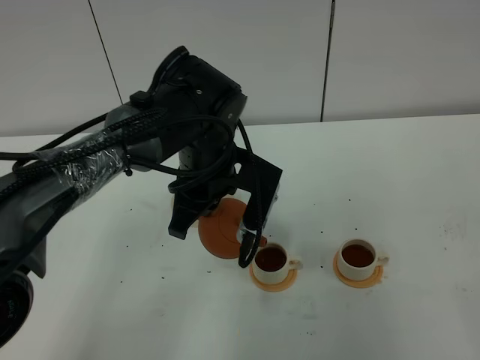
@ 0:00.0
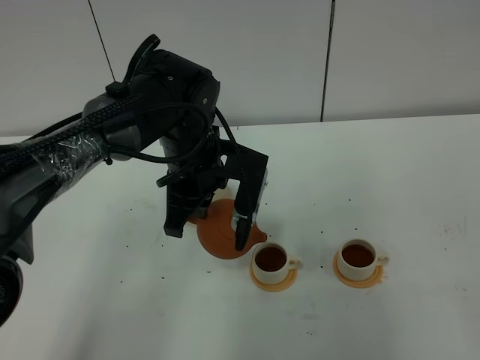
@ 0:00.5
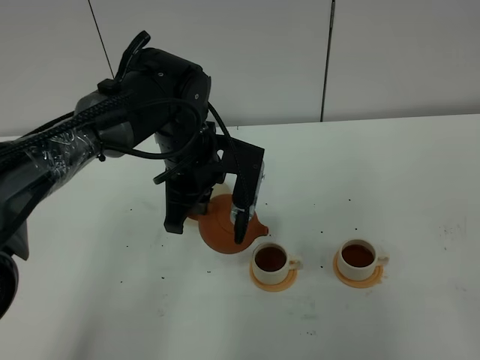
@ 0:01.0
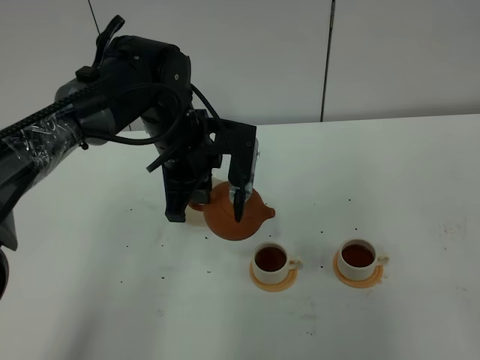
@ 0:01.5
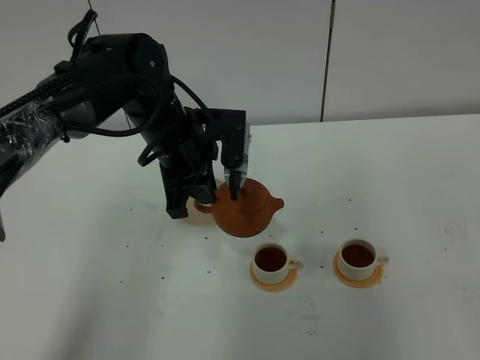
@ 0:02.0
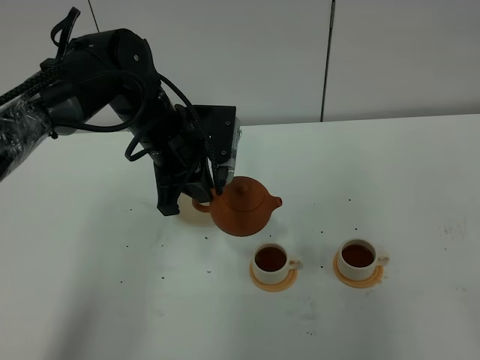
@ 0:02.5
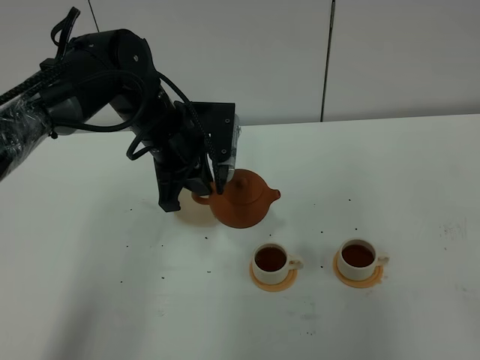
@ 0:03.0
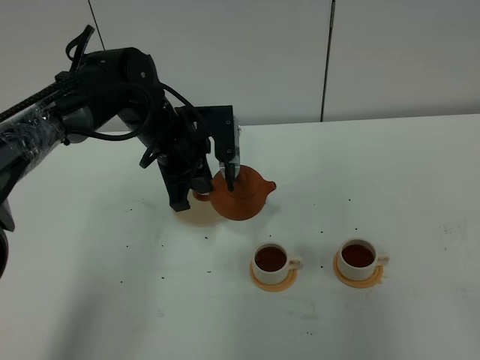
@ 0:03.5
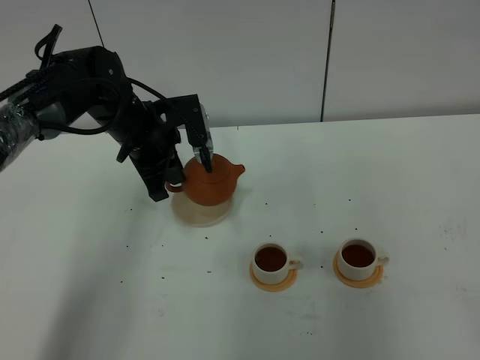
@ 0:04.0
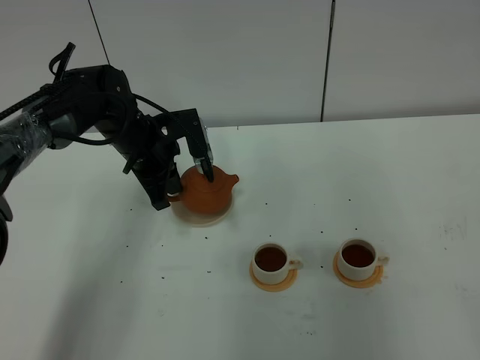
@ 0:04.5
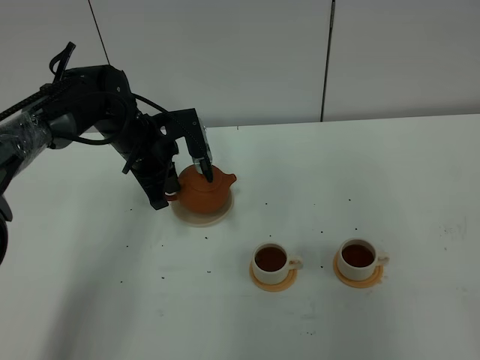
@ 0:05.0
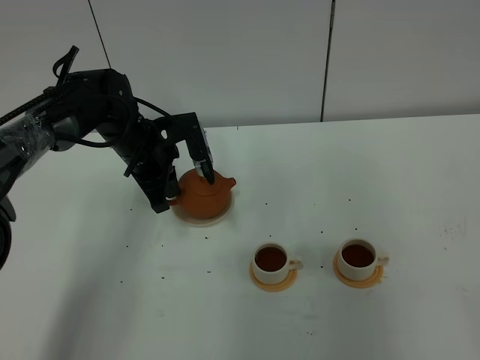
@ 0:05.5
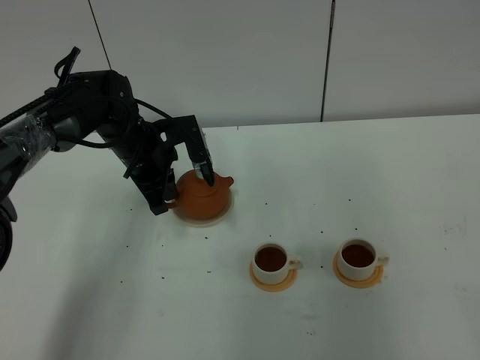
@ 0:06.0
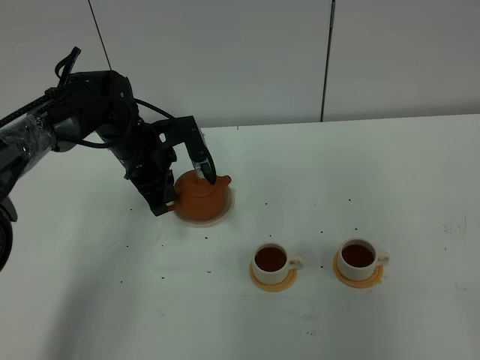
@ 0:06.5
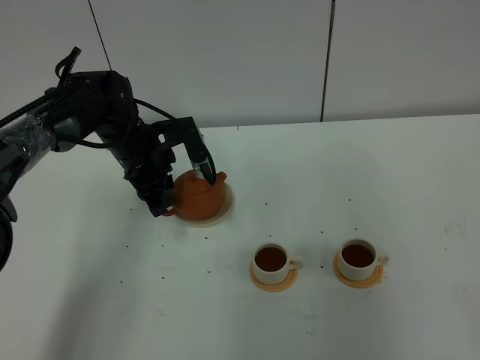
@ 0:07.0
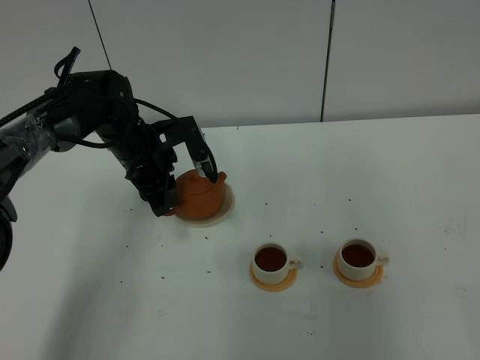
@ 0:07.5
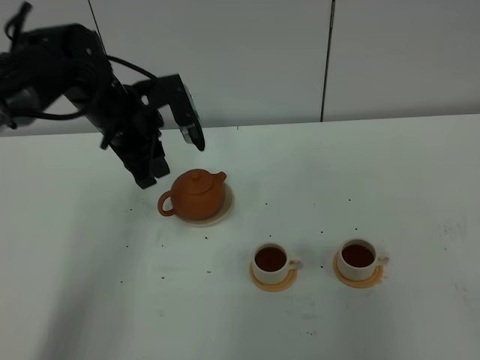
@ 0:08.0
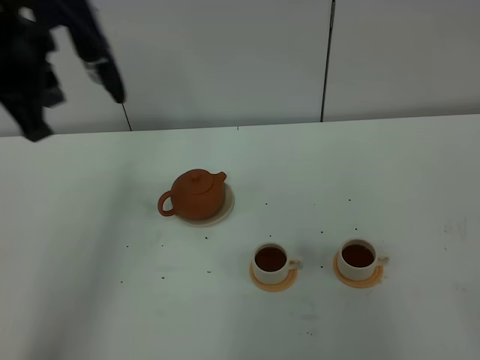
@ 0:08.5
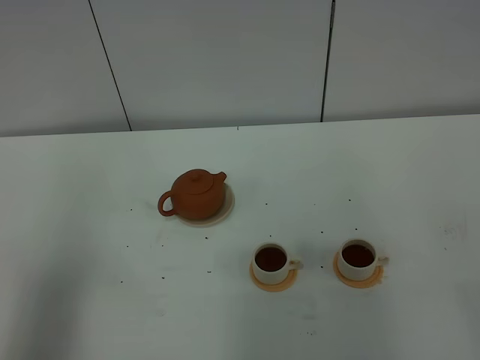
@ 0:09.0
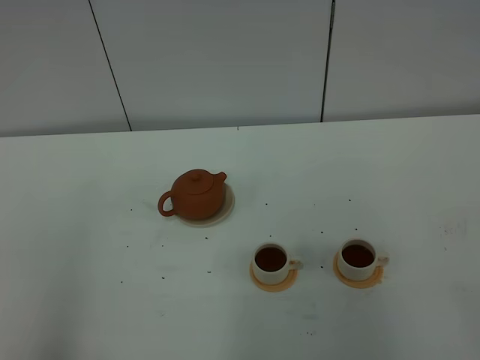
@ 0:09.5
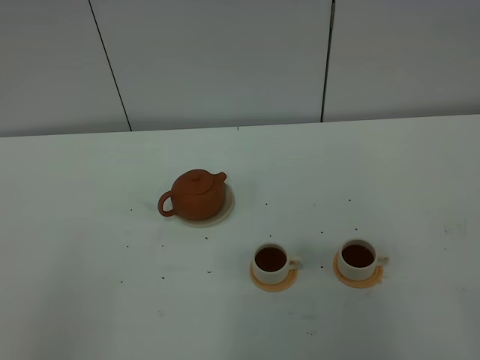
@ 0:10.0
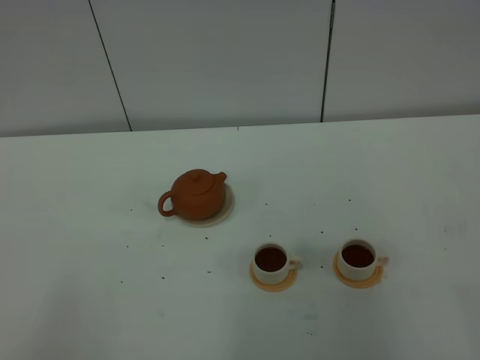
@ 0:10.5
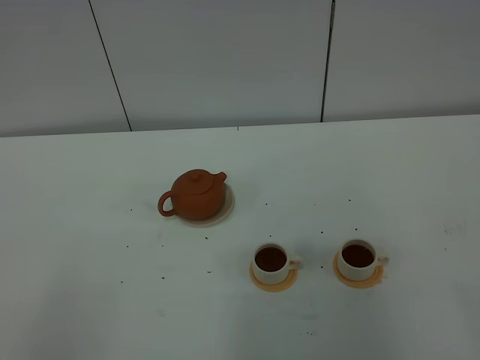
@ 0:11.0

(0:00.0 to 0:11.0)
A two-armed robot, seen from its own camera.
Task of the whole recording: grasp the brown teapot and pour the tea into the two white teacups one by one, put the brown teapot back in its original place.
0:00.0 - 0:02.0: The left gripper moves about 5 cm.
0:02.0 - 0:03.5: The grippers stay close to where they were, moving slightly.
0:03.5 - 0:05.5: The left gripper ends up approximately 5 cm from where it was.
0:05.5 - 0:07.5: The left gripper opens.
0:07.5 - 0:09.0: The left gripper shifts approximately 40 cm backward, upward and to the left, and closes.

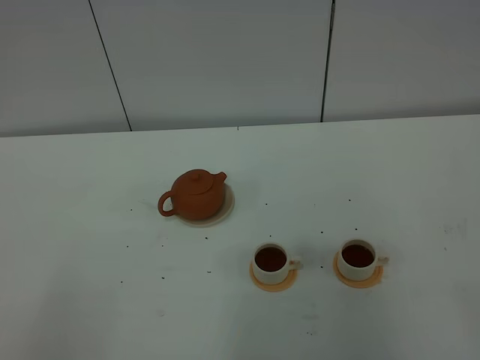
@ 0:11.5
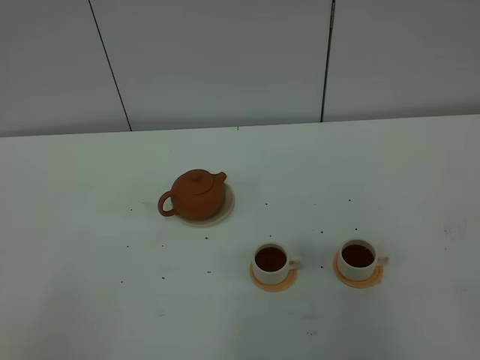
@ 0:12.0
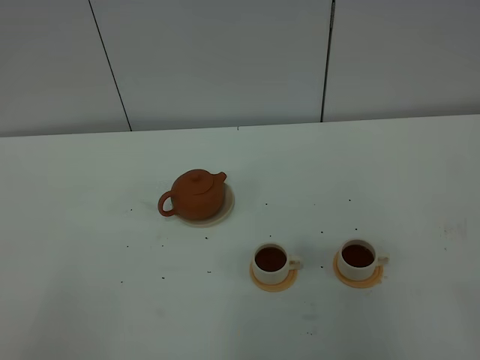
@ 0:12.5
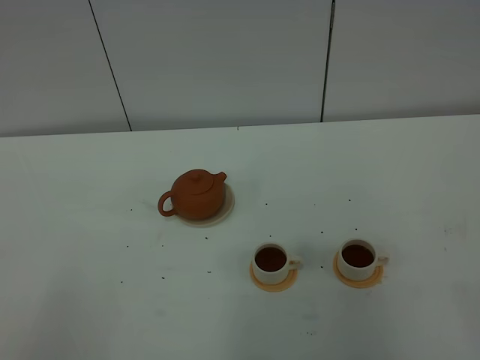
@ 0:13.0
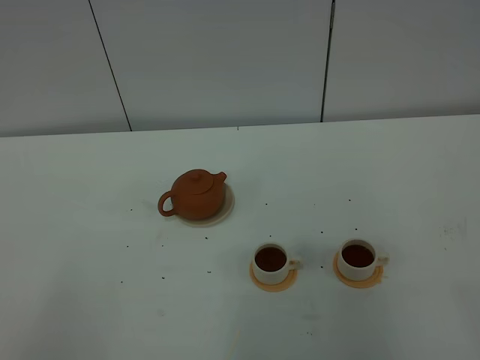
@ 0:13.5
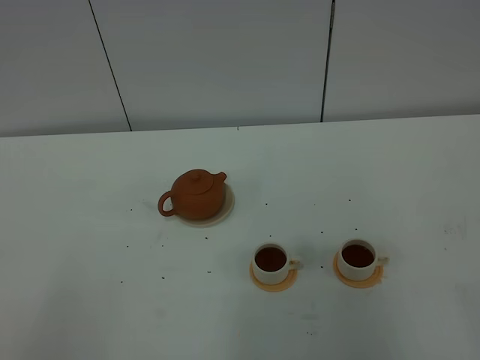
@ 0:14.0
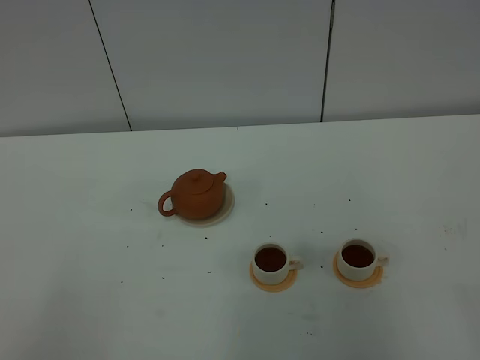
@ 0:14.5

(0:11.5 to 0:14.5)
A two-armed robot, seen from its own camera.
Task of the whole recording: grasp the brown teapot and pour the tea into the two white teacups one by one, put the brown teapot back in its original place.
0:11.5 - 0:14.5: Both grippers stay about where they are.

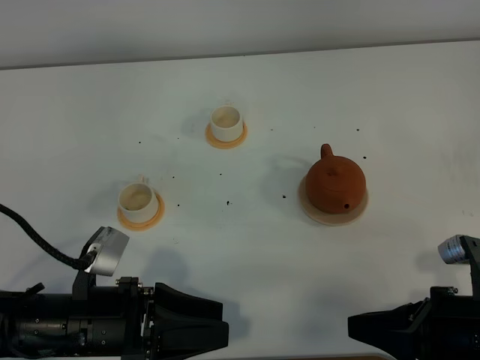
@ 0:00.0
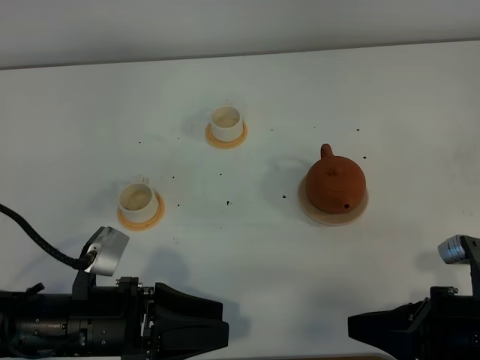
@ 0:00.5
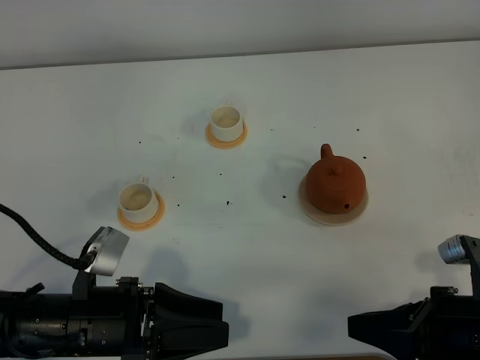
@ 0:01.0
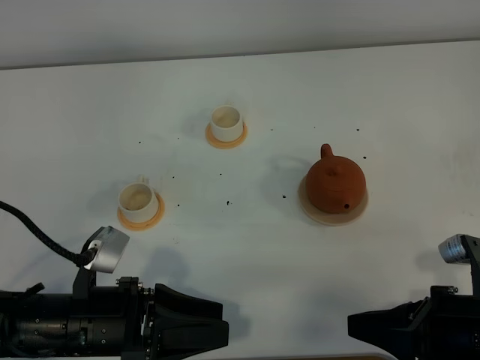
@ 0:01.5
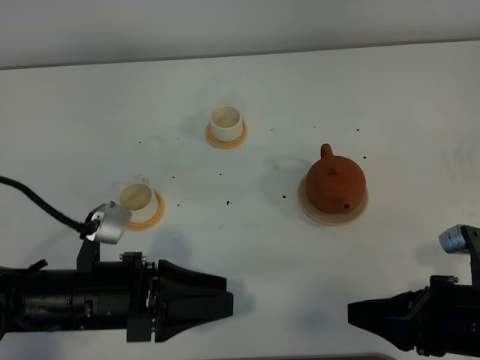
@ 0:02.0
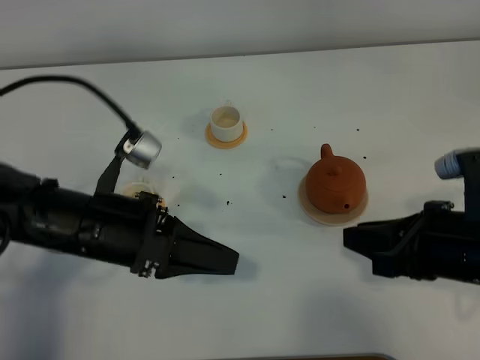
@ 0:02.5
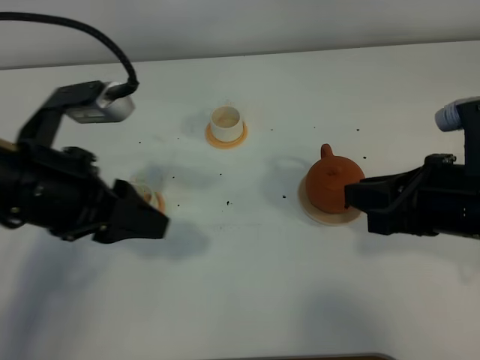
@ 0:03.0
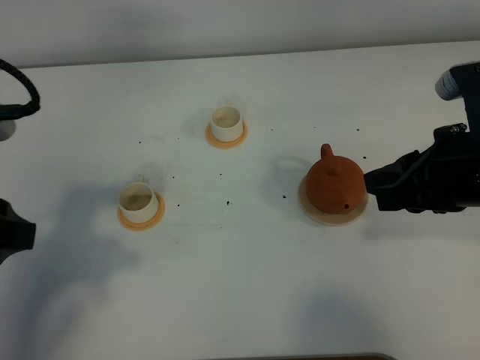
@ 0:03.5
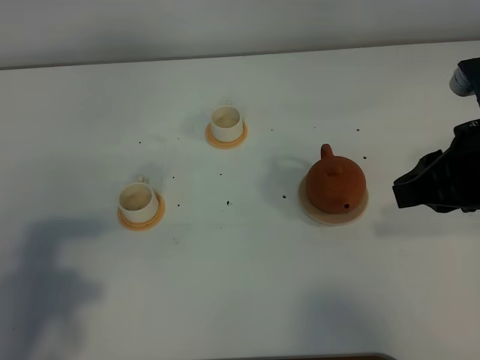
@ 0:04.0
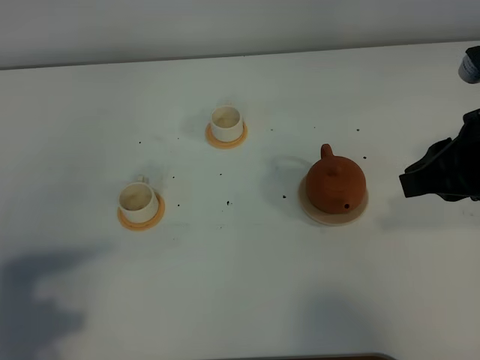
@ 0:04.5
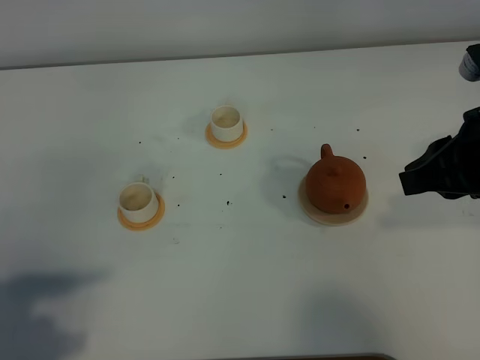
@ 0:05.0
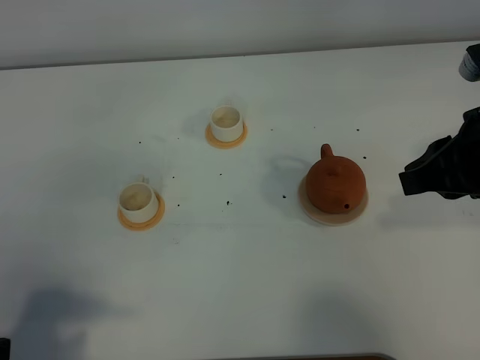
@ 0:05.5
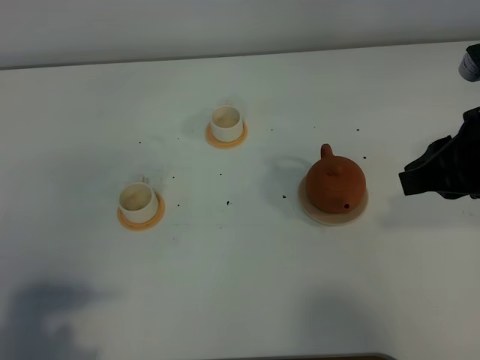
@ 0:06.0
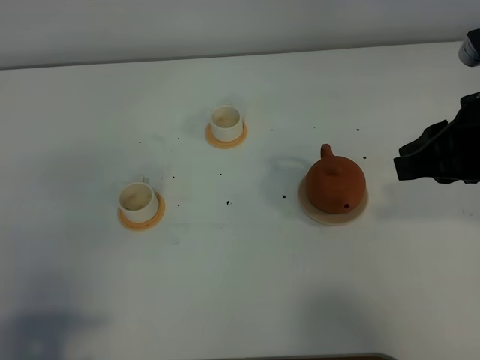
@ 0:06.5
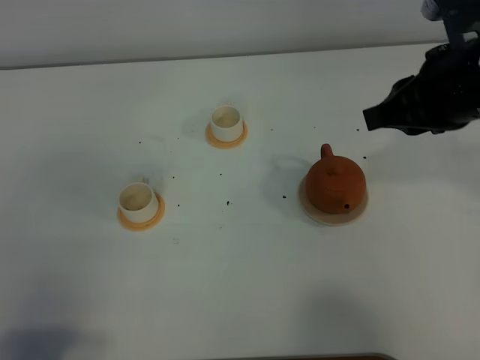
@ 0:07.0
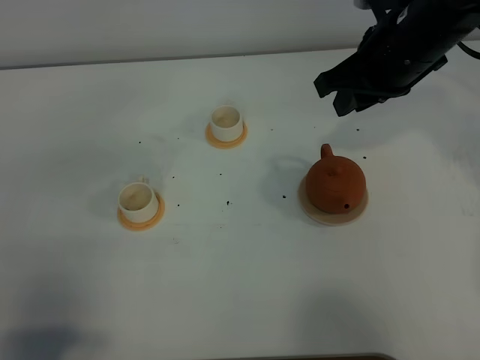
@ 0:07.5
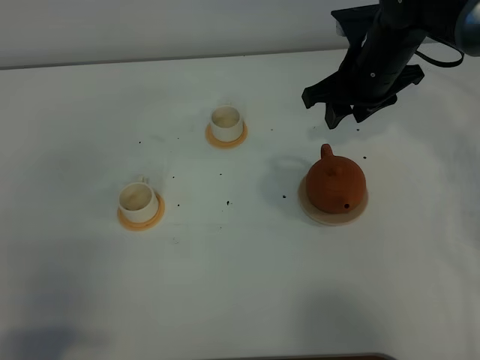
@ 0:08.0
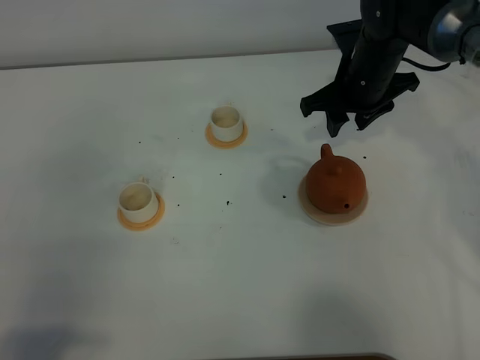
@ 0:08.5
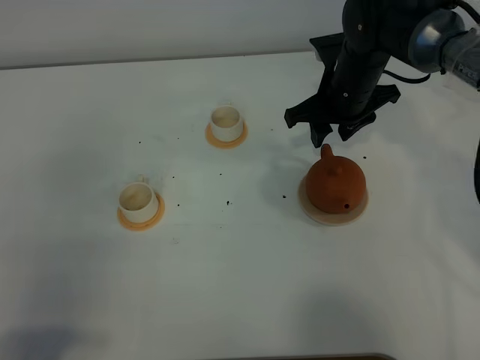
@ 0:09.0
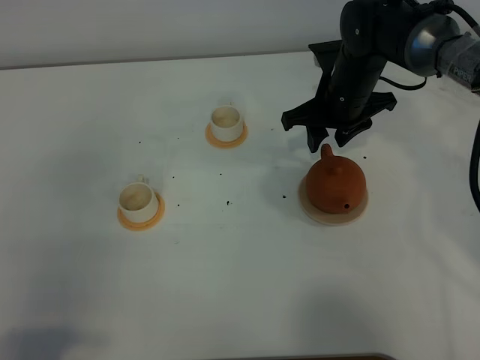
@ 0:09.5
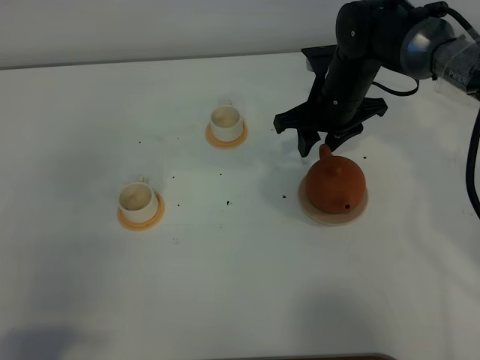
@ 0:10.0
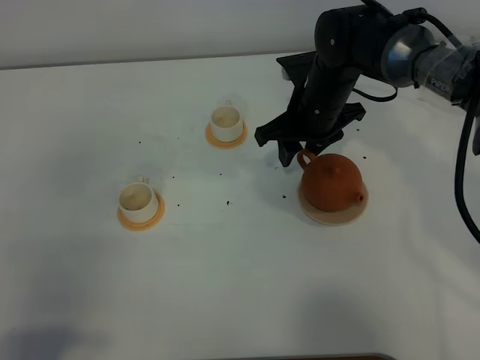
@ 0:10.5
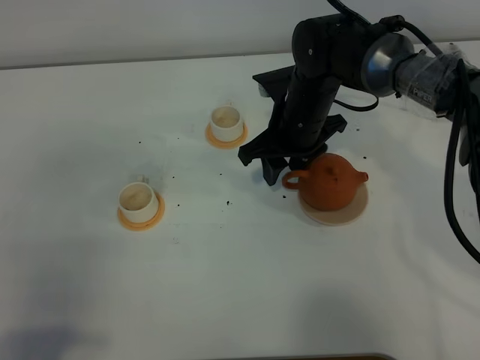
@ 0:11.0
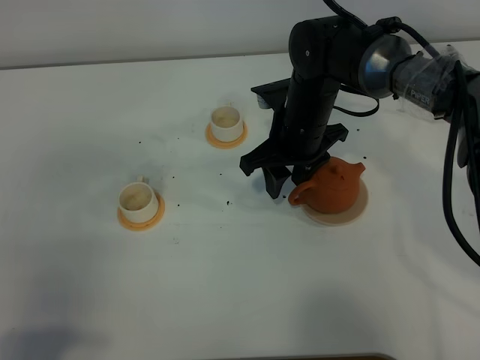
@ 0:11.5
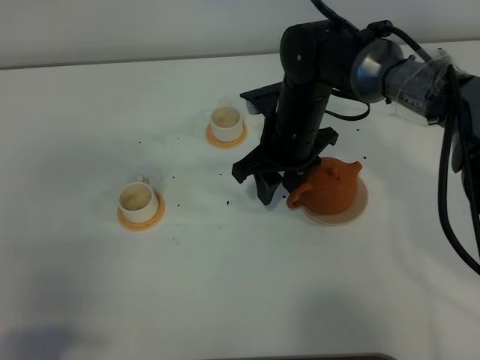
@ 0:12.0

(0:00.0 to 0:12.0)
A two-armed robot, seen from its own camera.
Task of the whole recording: grasp the brown teapot and pour the tea into the two white teacups one by one, put the brown teapot back in its original place.
0:00.0 - 0:02.0: The grippers move only a little.
0:02.0 - 0:04.0: The right gripper goes about 15 cm upward and forward; the left gripper moves upward and to the left, approximately 20 cm.
0:04.0 - 0:06.0: The left gripper shifts roughly 5 cm backward.
0:06.0 - 0:08.0: The left gripper is displaced backward by approximately 5 cm; the right gripper is displaced forward, to the left and downward by about 25 cm, and opens its fingers.
0:08.0 - 0:10.0: The right gripper travels downward by approximately 5 cm.
0:10.0 - 0:12.0: The right gripper travels backward and to the left by roughly 10 cm.
